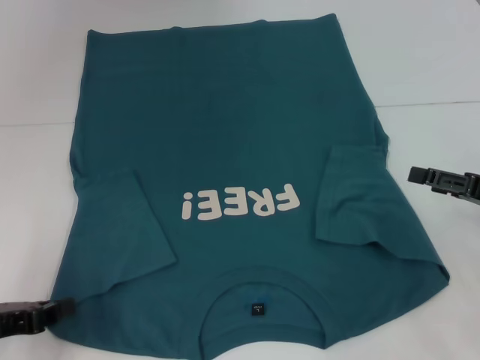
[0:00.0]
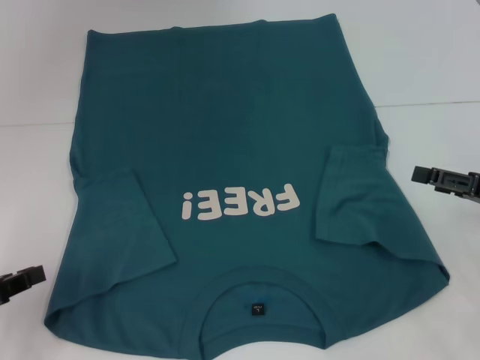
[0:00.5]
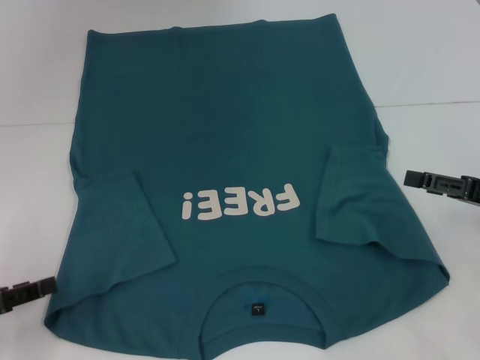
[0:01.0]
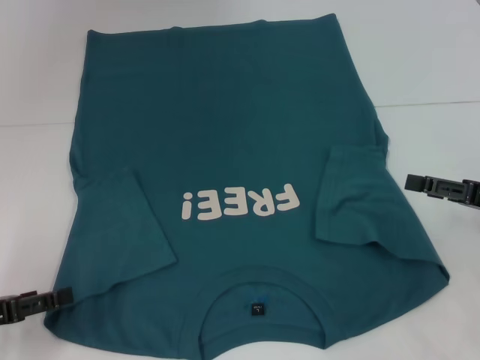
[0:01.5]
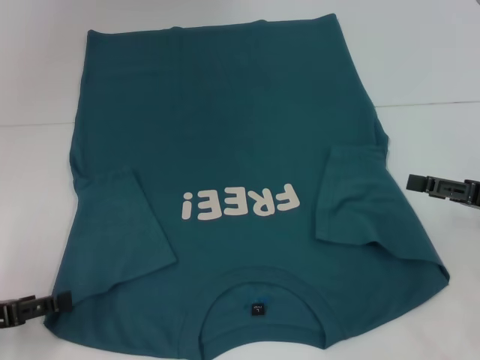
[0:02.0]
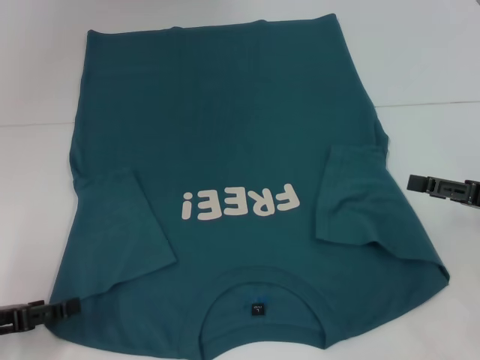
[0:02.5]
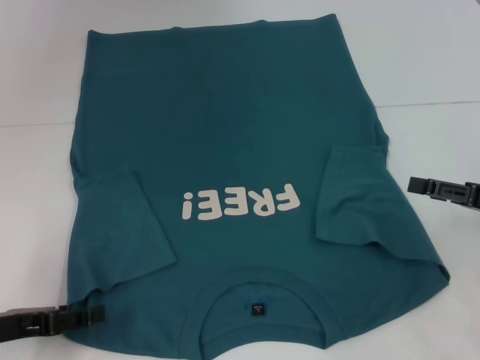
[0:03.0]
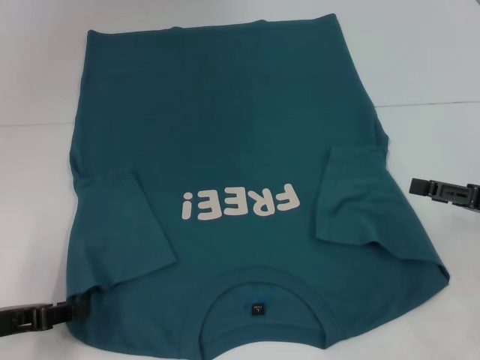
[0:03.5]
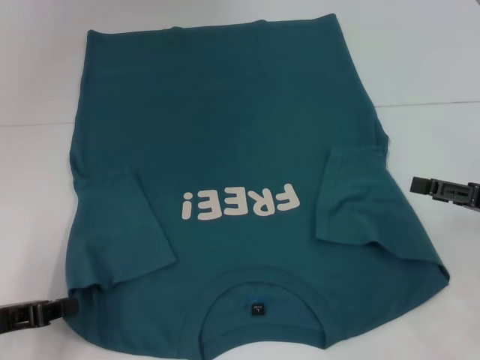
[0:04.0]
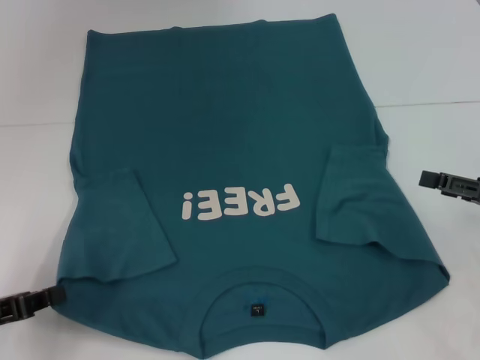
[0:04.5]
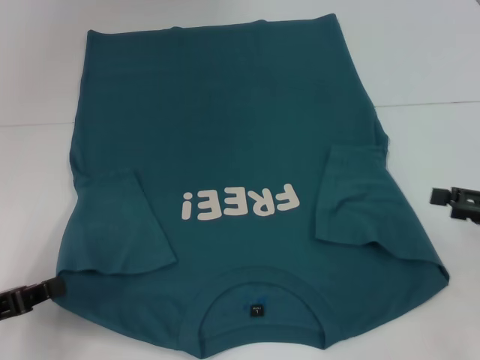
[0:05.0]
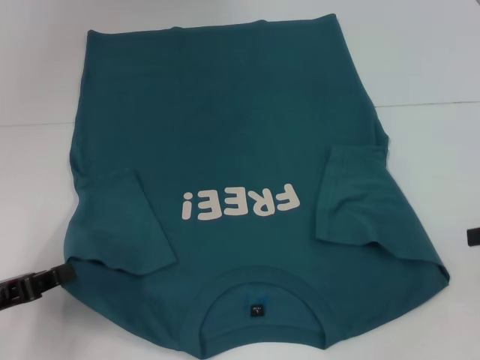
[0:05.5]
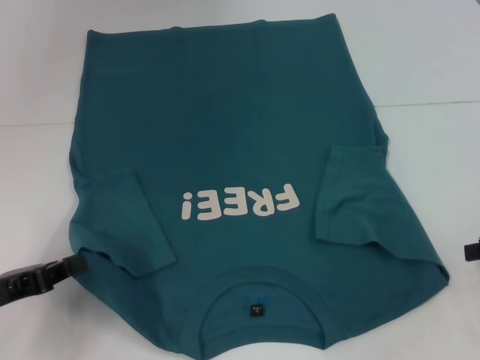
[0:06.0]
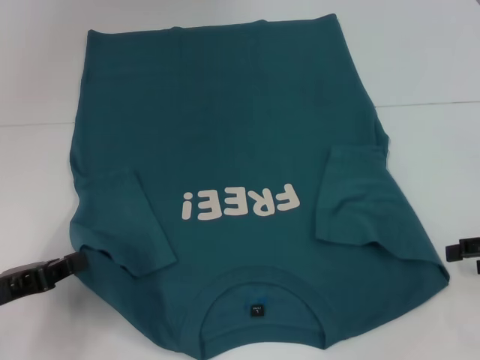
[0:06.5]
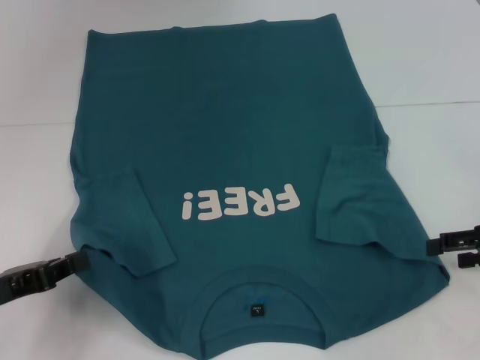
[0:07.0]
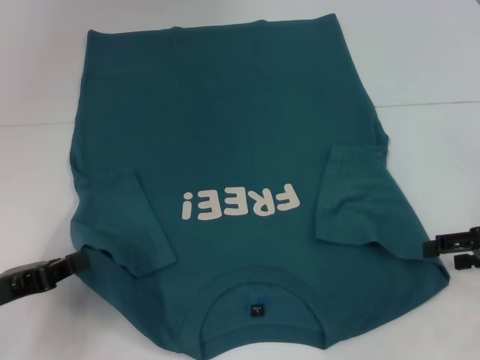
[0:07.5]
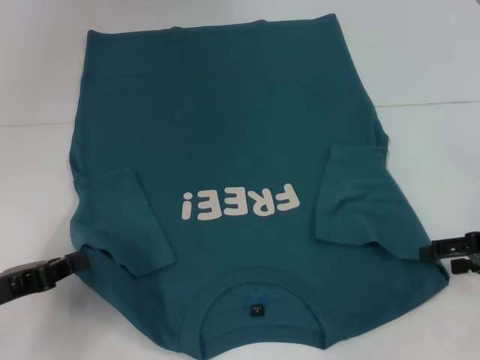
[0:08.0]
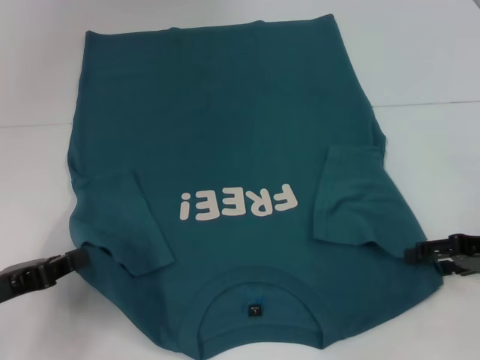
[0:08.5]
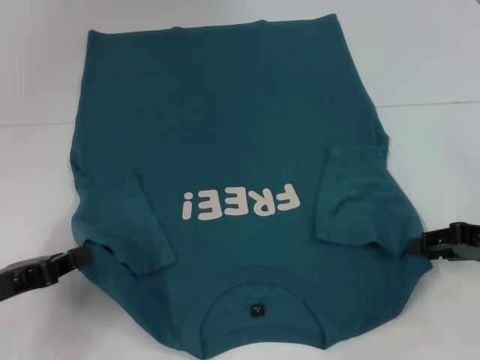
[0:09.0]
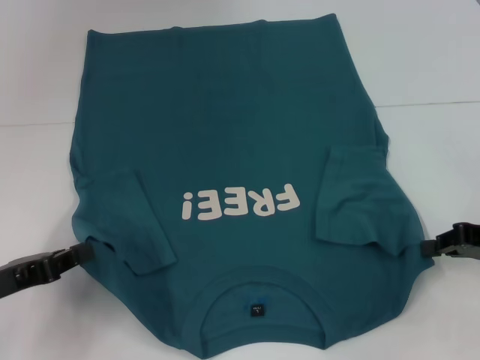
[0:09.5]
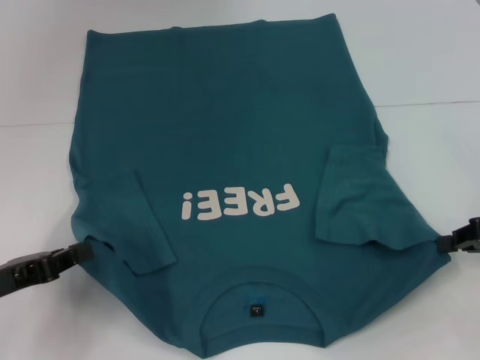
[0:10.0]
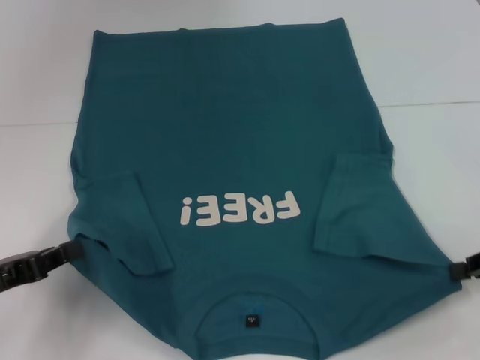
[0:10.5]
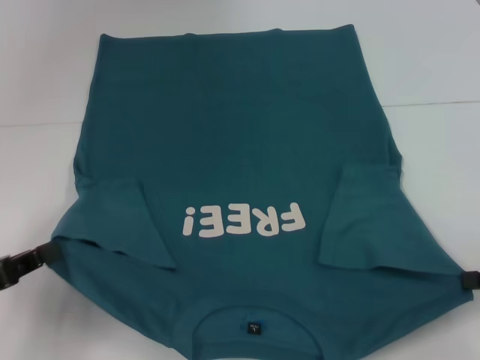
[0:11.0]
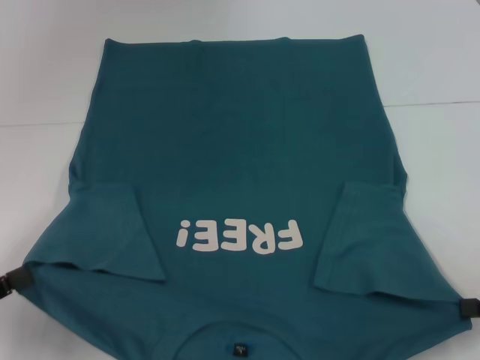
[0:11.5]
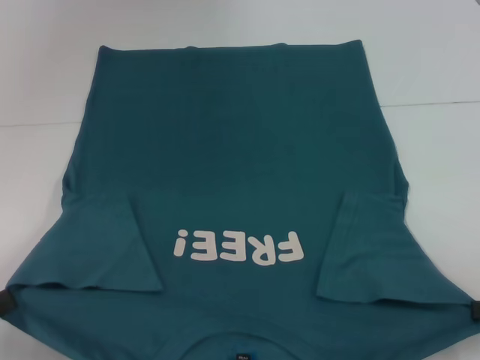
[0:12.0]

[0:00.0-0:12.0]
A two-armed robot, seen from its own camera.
Step, 0:00.0 to 0:03.5: Grab the bottom left corner with your left hand.
Step, 0:04.0 to 0:09.5: Grab the bottom right corner with your right hand.
0:00.0 to 0:02.0: The left gripper opens its fingers.
0:02.0 to 0:04.0: The left gripper closes its fingers.
0:06.0 to 0:08.0: The grippers move only a little.
0:08.0 to 0:10.0: The right gripper closes.
0:10.0 to 0:12.0: The right gripper is displaced backward by some 10 cm. The left gripper is displaced backward and to the left by about 10 cm.

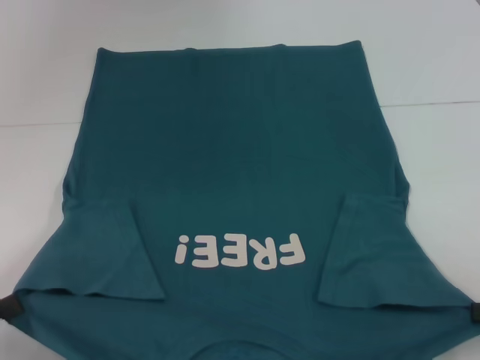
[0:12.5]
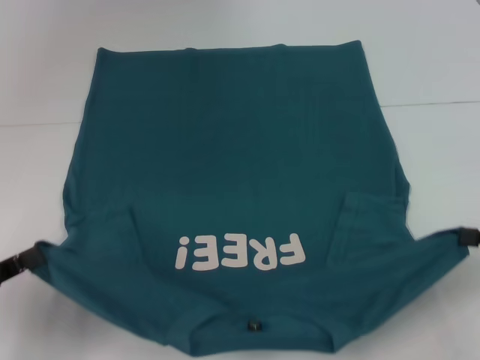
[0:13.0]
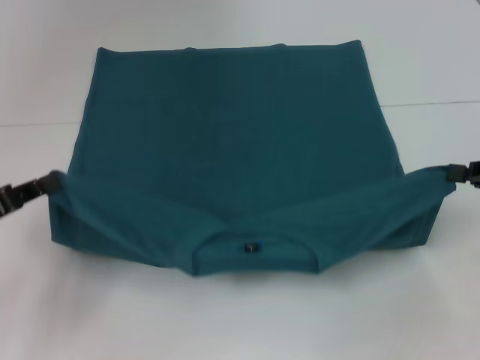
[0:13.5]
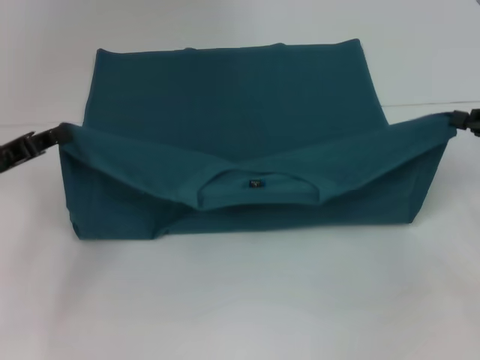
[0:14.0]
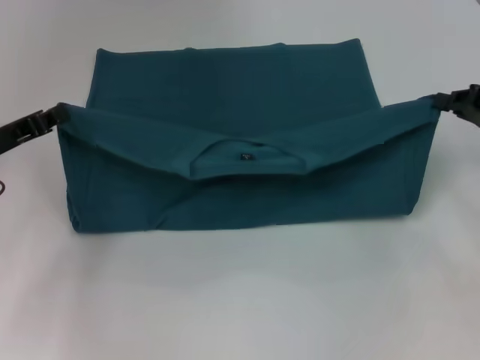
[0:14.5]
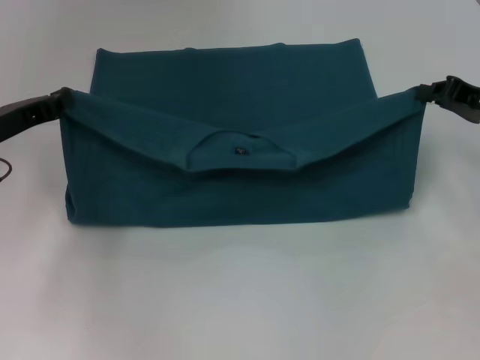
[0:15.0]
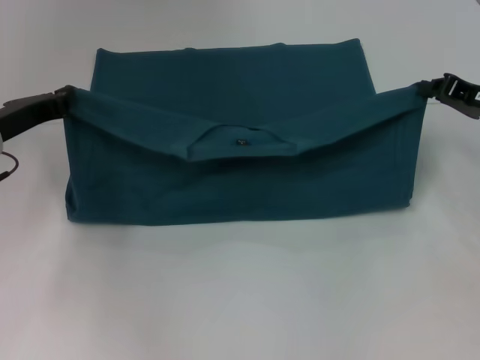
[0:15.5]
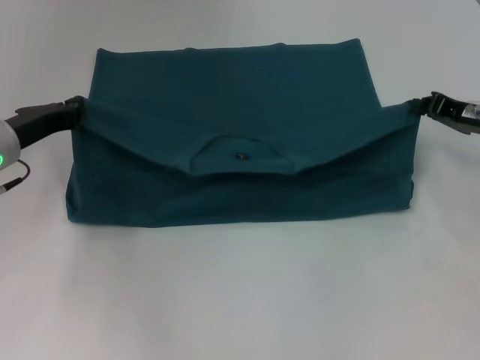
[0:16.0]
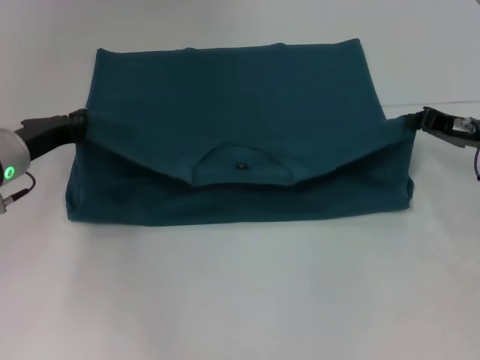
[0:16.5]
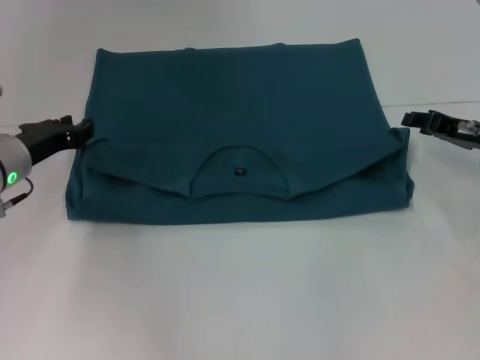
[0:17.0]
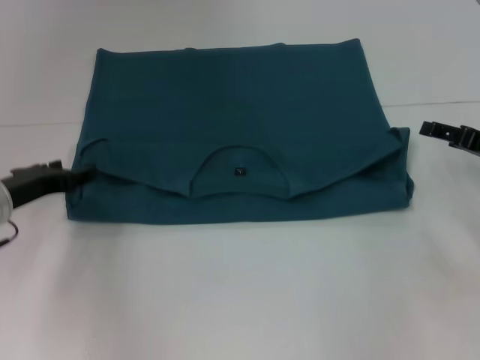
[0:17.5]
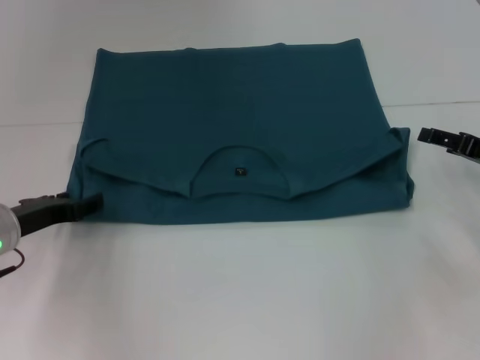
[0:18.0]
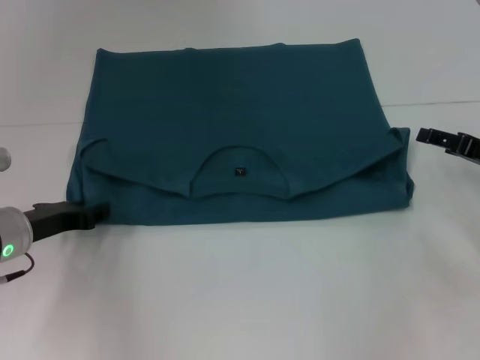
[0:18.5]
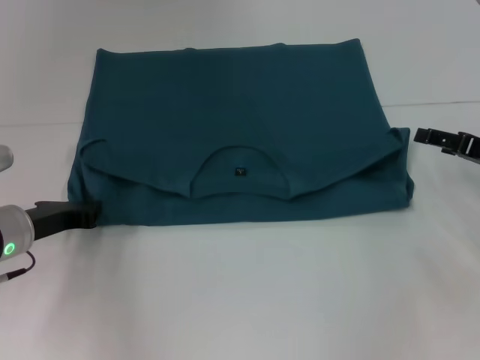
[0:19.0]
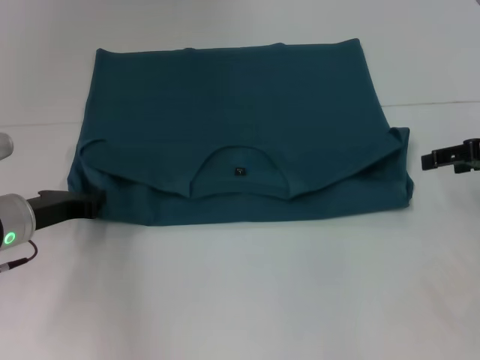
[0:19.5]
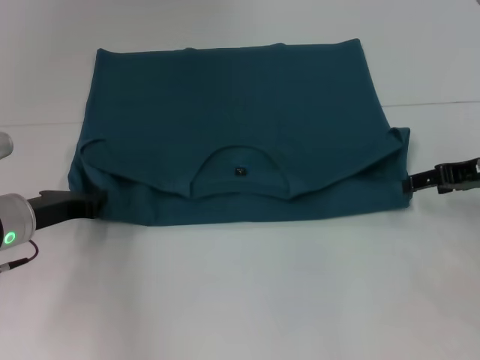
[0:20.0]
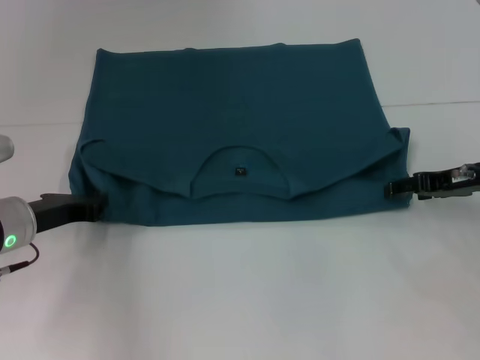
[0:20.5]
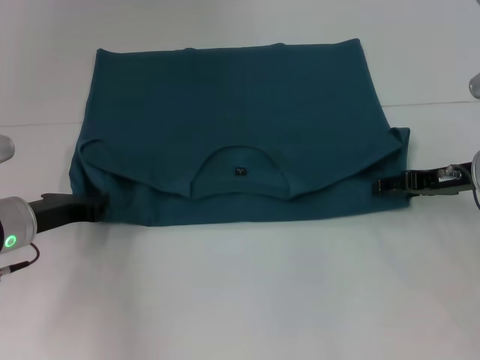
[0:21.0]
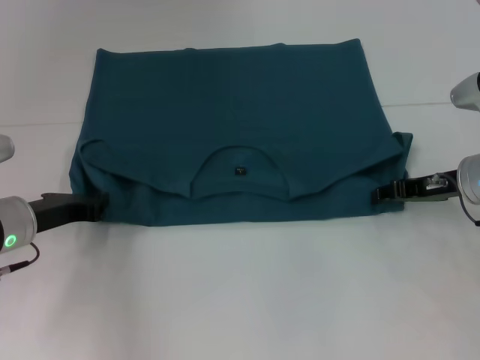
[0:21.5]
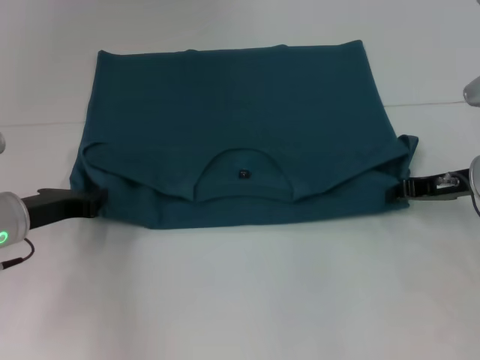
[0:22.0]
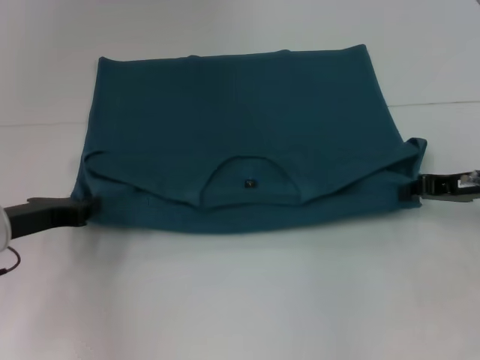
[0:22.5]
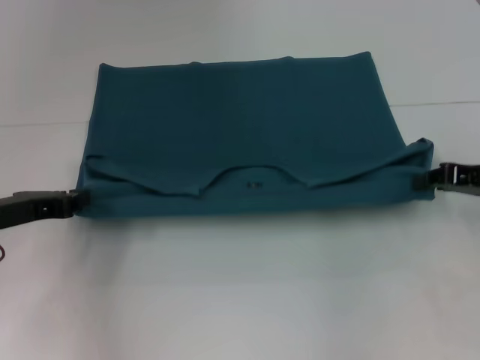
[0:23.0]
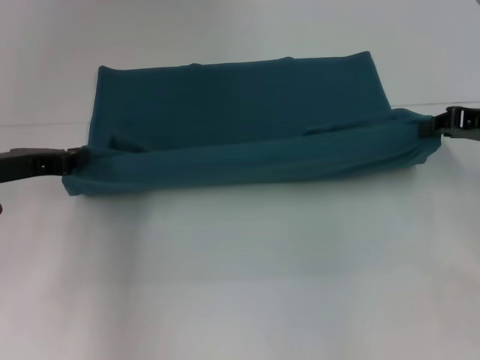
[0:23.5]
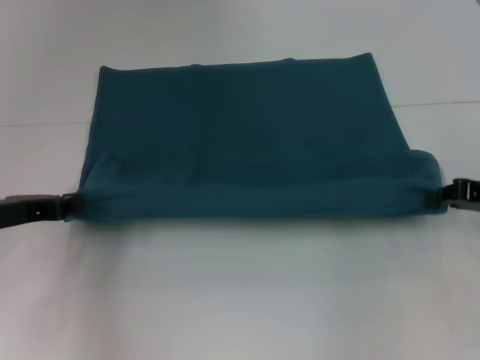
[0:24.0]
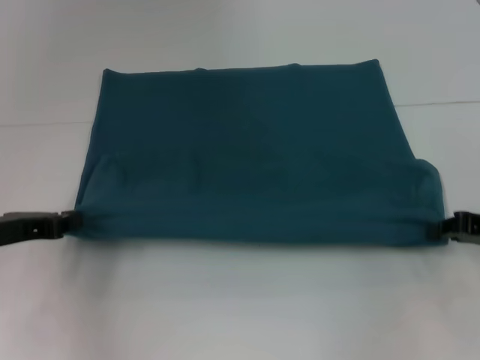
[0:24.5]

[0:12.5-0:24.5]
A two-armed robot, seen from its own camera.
Step, 0:12.5 to 0:17.0: Fold the clothes to the left.
Step, 0:12.5 to 0:17.0: Fold the clothes to the right.
0:12.5 to 0:14.5: The grippers both shift forward by about 20 cm.
0:14.5 to 0:16.5: The right gripper ends up about 5 cm from where it was. Meanwhile the left gripper moves some 5 cm.
0:16.5 to 0:18.5: The right gripper changes place by roughly 5 cm, and opens up. Meanwhile the left gripper is displaced backward by about 5 cm, and opens its fingers.
0:18.5 to 0:20.5: The right gripper ends up some 5 cm from where it was. Meanwhile the left gripper closes up.
0:20.5 to 0:22.5: The right gripper closes up.
0:22.5 to 0:24.5: The right gripper travels backward by roughly 5 cm, and travels upward and back again, some 5 cm each way.

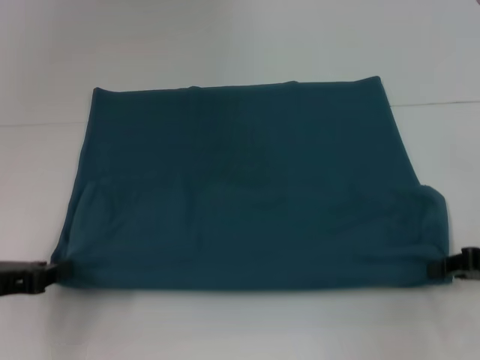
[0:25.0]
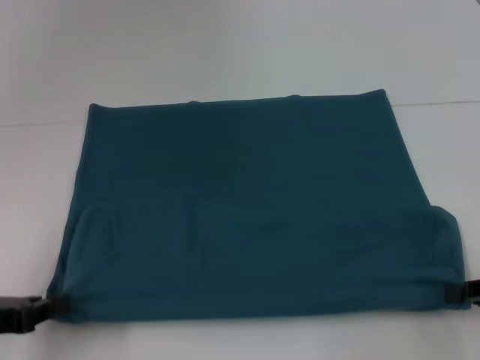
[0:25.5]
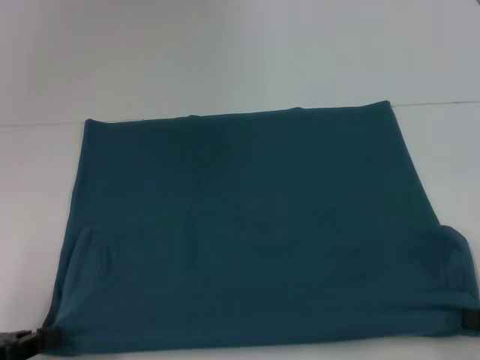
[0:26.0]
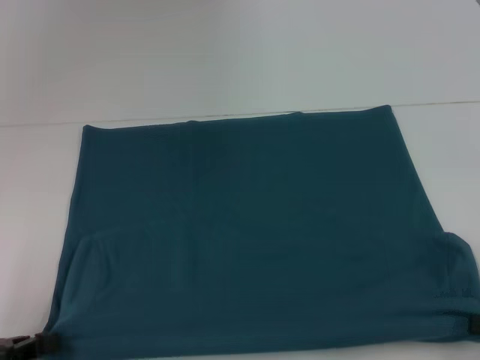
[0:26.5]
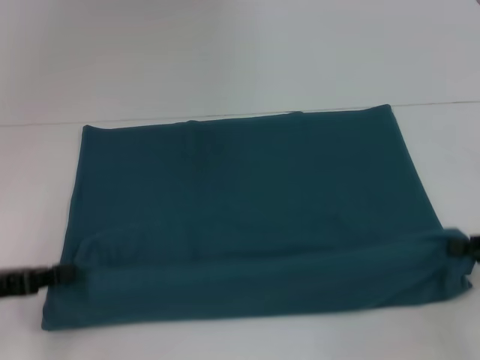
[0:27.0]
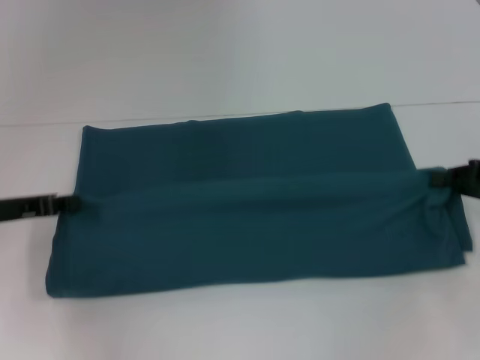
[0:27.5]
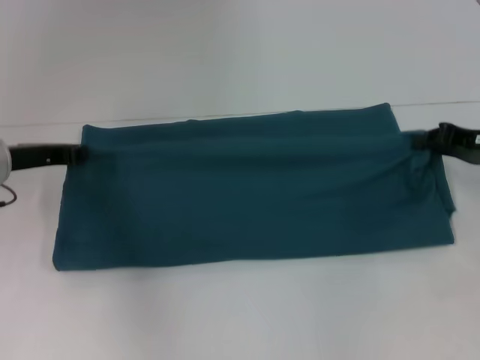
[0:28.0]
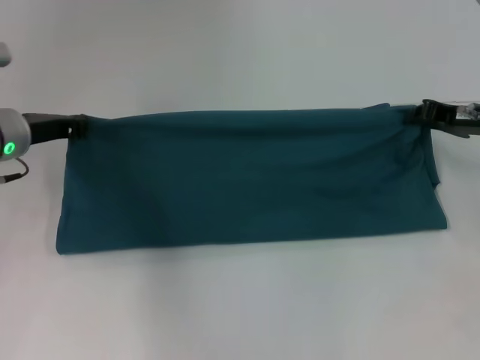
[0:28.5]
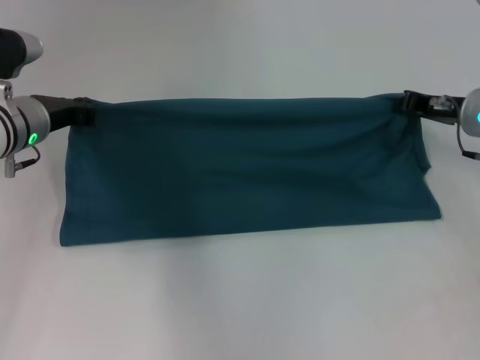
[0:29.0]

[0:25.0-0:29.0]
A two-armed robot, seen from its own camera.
0:25.0 to 0:27.0: The left gripper travels backward and back again, approximately 10 cm each way; the right gripper goes backward and returns, approximately 10 cm each way.
0:27.0 to 0:29.0: The left gripper travels forward and to the right by some 20 cm. Meanwhile the right gripper goes about 20 cm forward and to the left.
